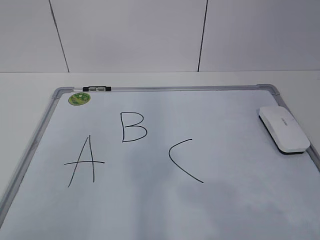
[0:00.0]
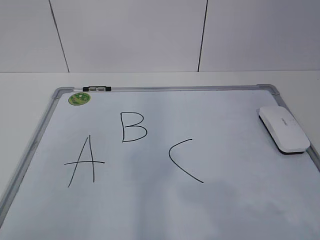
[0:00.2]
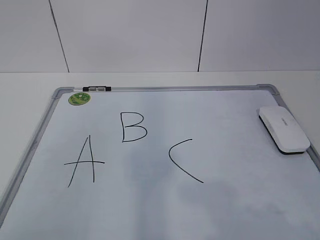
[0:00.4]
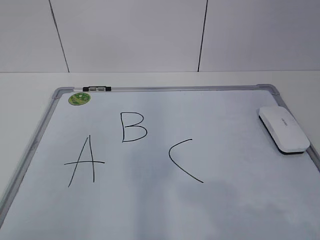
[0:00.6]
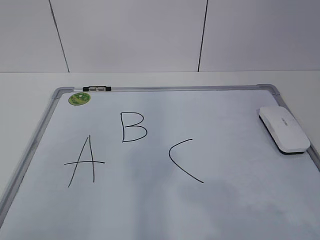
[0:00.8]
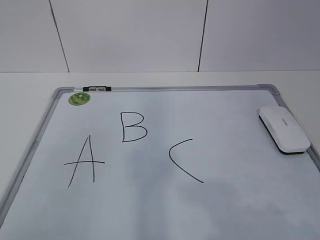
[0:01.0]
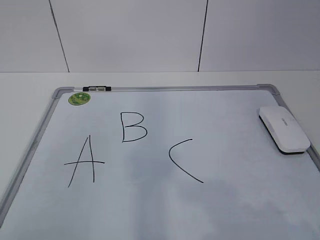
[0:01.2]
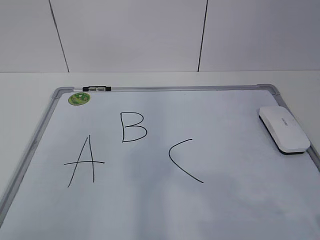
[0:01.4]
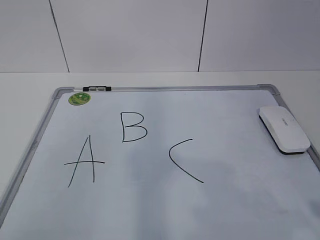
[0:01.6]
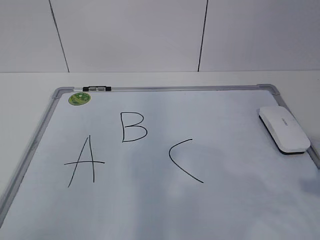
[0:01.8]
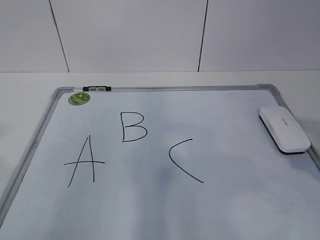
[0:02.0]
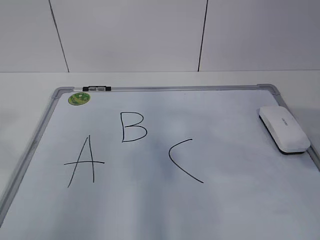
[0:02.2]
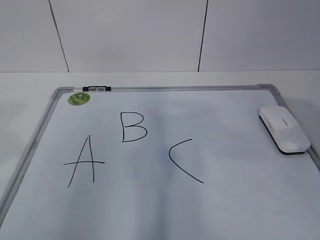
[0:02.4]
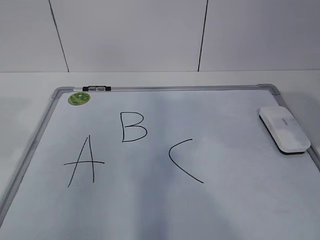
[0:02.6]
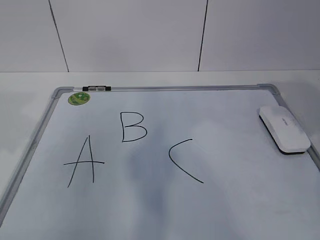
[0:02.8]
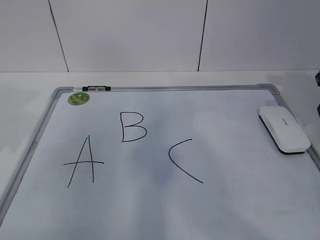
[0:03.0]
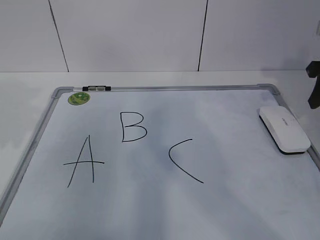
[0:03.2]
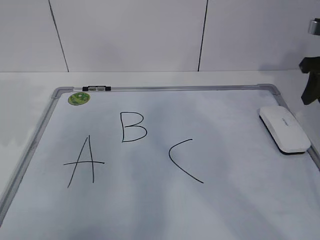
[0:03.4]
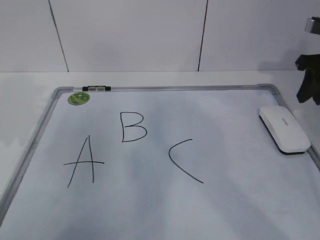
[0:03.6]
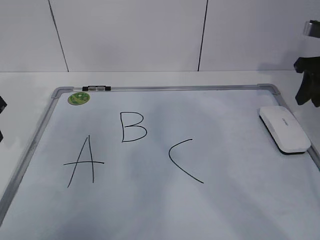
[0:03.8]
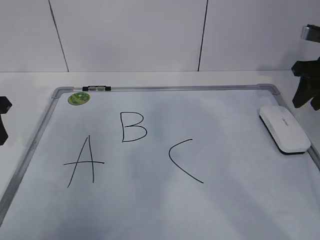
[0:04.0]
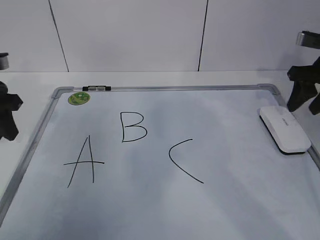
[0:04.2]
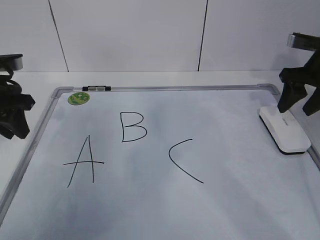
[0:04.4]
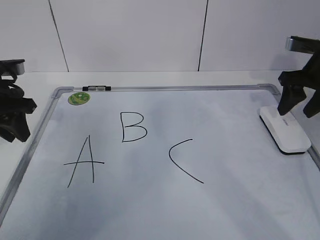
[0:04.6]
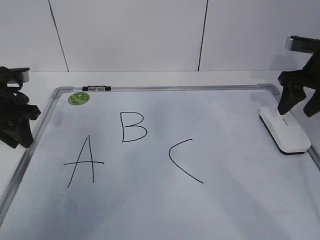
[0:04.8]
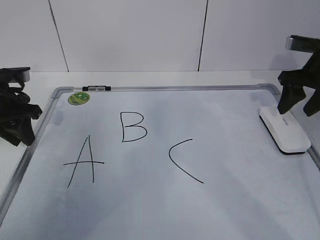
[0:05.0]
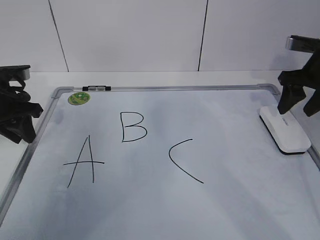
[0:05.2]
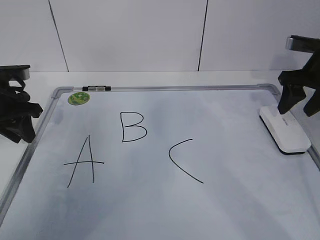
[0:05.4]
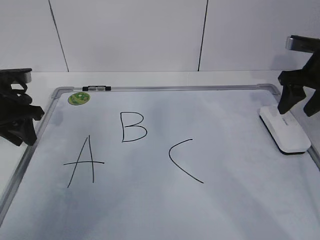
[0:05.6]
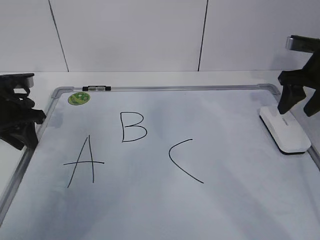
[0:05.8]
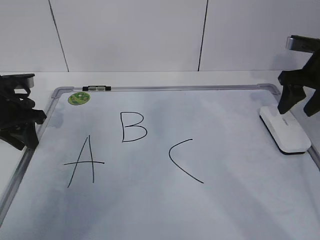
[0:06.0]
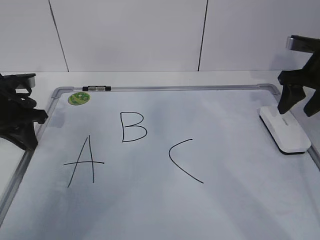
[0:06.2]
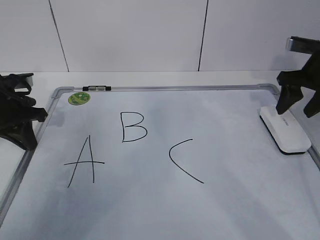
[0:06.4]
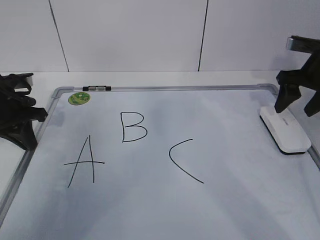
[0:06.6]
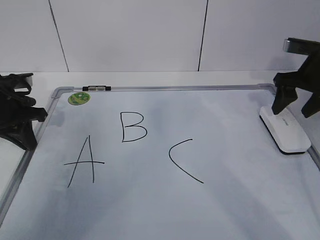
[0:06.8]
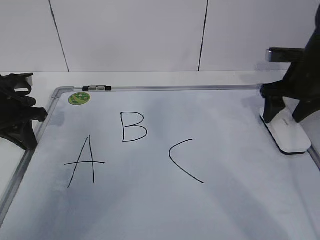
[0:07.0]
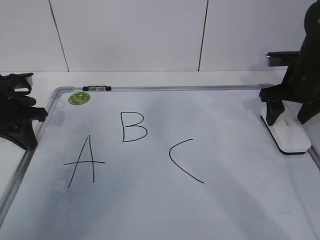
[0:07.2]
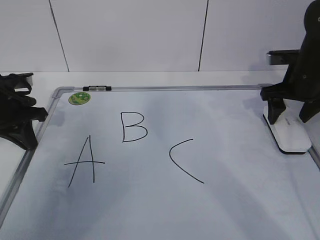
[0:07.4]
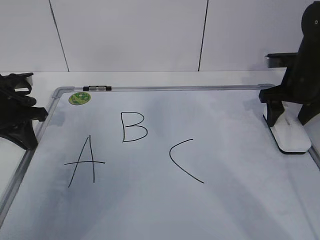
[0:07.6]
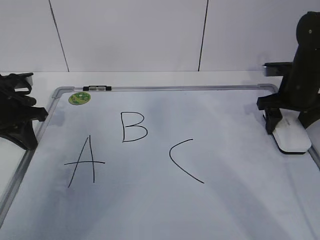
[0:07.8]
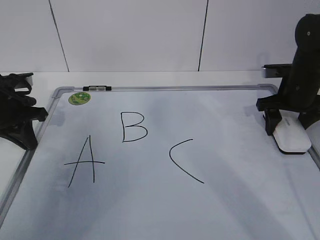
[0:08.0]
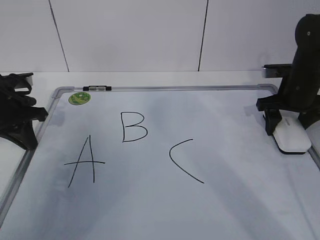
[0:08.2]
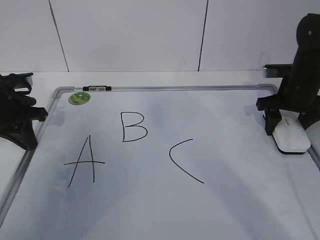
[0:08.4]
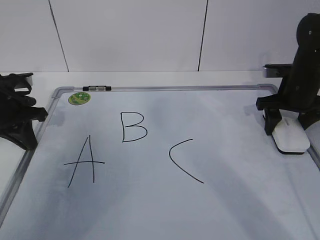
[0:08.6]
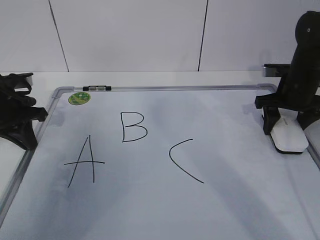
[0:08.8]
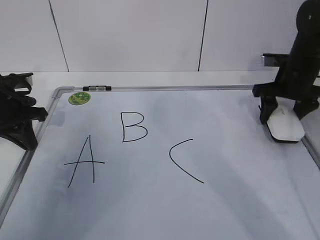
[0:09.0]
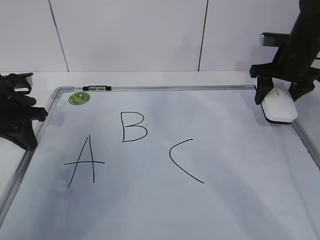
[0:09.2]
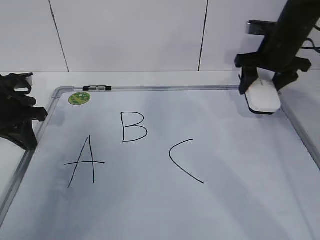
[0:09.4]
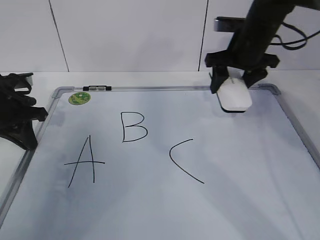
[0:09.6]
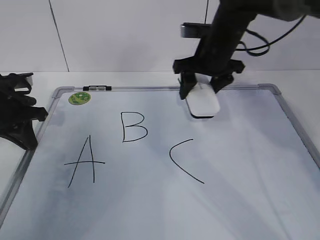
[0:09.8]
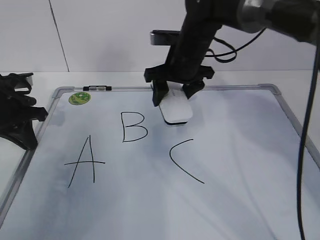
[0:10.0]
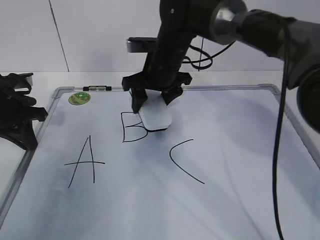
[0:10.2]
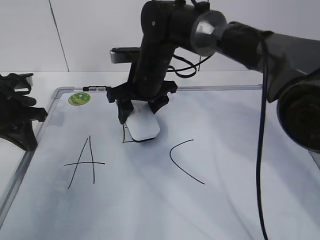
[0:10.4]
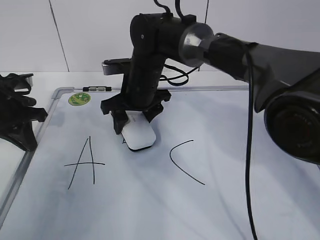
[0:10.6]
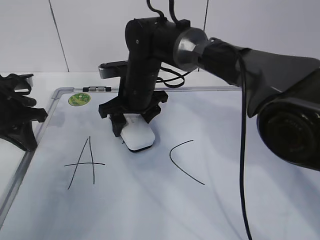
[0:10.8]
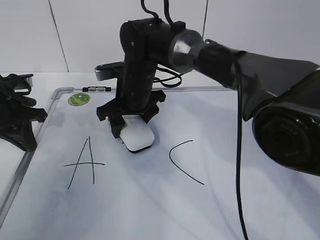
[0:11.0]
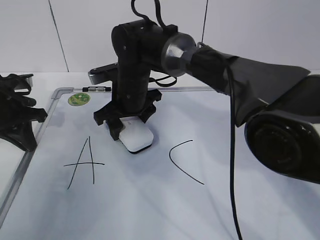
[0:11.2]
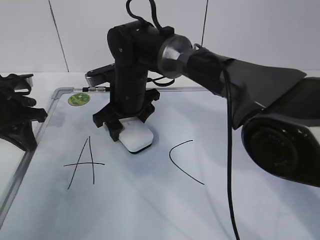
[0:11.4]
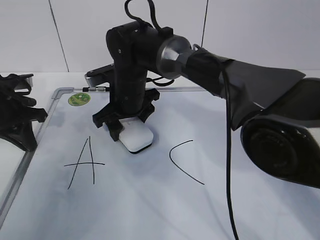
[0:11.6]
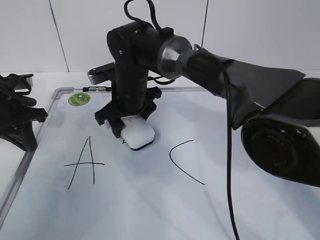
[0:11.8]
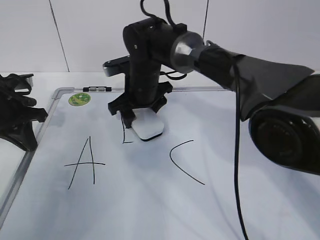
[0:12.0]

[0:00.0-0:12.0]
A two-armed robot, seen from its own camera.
Task of the whole recording: pick up the eraser on the blackboard and erase the letter "B".
Step, 0:00.0 to 0:05.0: Hold the drawing board steady with your left hand.
Step, 0:05.4 to 0:06.8: Grab the eraser with your right hand.
Step, 0:07.0 to 0:11.4: Put down the eraser with your right hand.
0:01.6 to 0:03.0: The grippers both shift forward by approximately 25 cm.
0:03.0 to 0:04.4: The right gripper is displaced forward by about 10 cm, and opens up. Meanwhile the left gripper travels forward and downward by about 15 cm.
0:04.4 to 0:06.0: The left gripper is displaced downward by about 5 cm.
0:06.0 to 0:07.6: The left gripper closes.
0:07.6 to 0:09.0: The grippers make only small movements.
0:09.0 to 0:10.4: The right gripper travels to the left by some 30 cm.

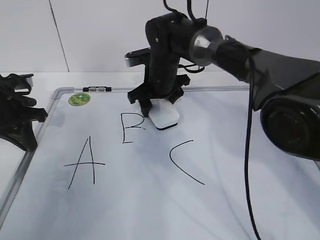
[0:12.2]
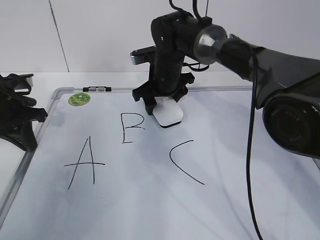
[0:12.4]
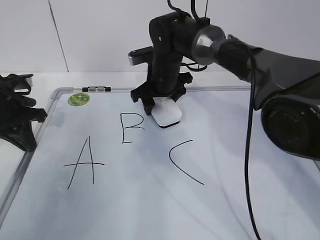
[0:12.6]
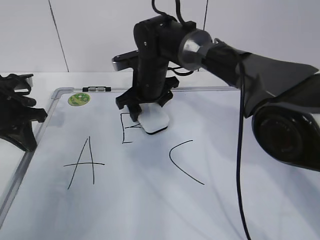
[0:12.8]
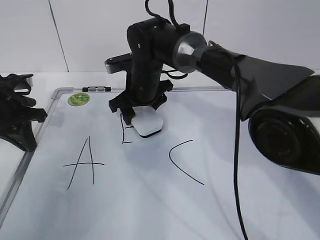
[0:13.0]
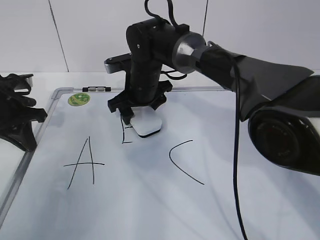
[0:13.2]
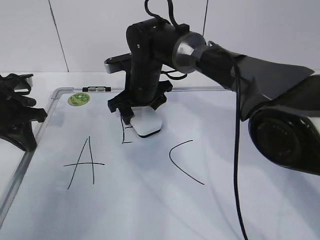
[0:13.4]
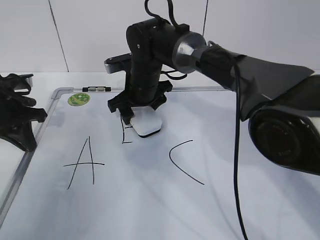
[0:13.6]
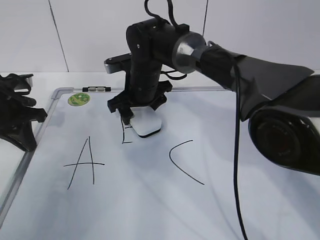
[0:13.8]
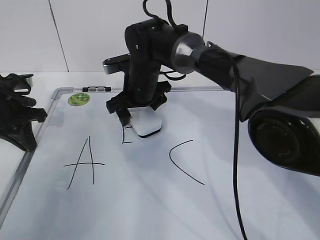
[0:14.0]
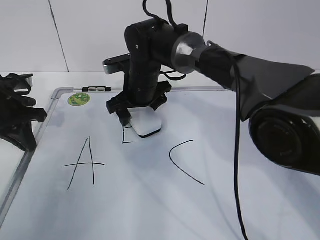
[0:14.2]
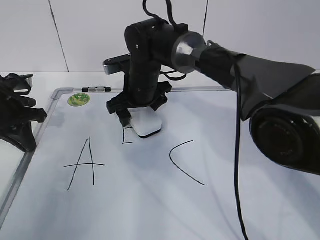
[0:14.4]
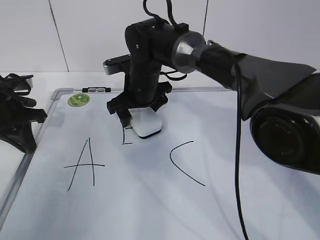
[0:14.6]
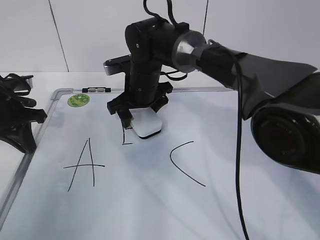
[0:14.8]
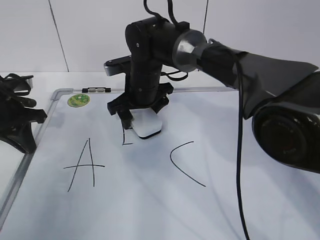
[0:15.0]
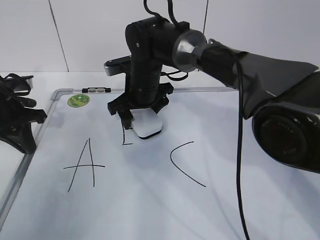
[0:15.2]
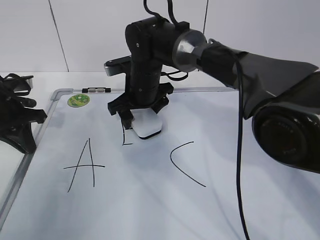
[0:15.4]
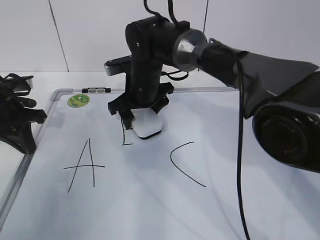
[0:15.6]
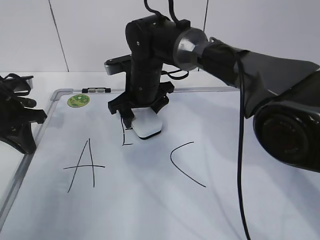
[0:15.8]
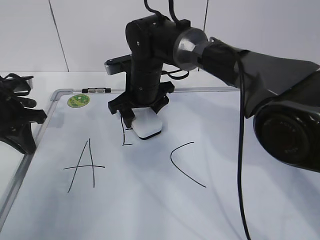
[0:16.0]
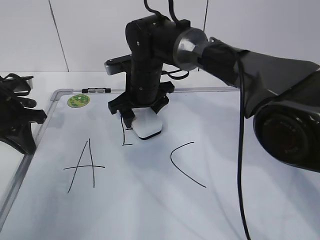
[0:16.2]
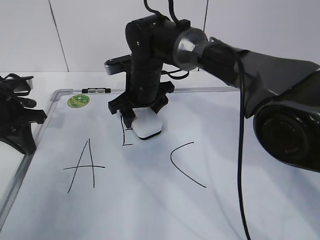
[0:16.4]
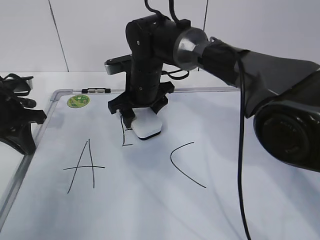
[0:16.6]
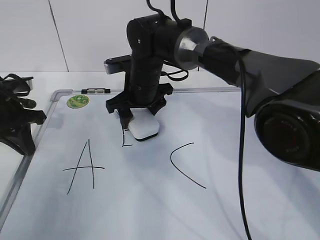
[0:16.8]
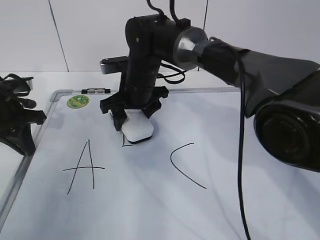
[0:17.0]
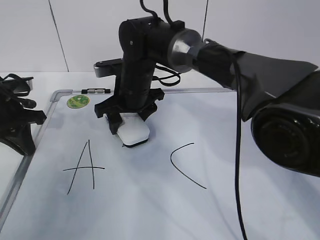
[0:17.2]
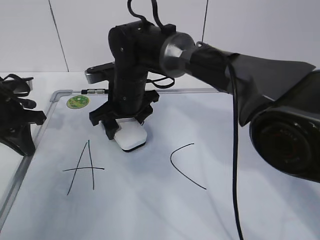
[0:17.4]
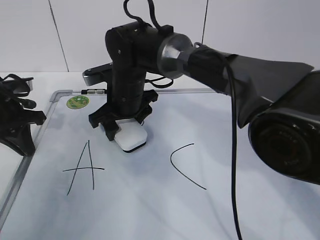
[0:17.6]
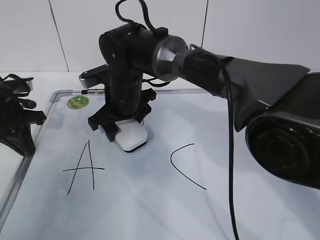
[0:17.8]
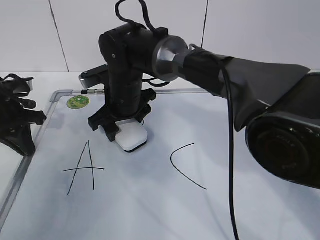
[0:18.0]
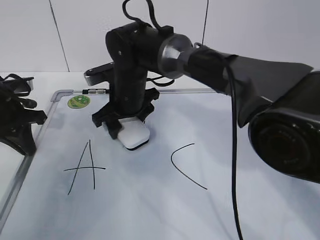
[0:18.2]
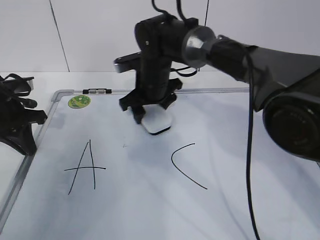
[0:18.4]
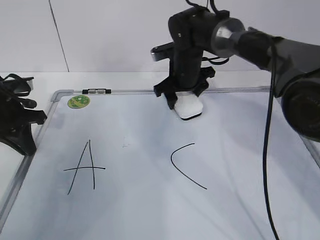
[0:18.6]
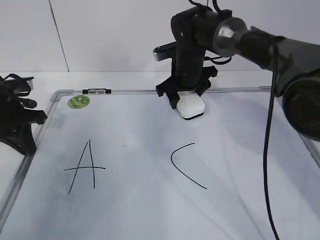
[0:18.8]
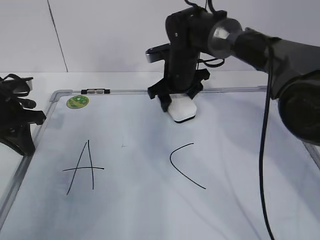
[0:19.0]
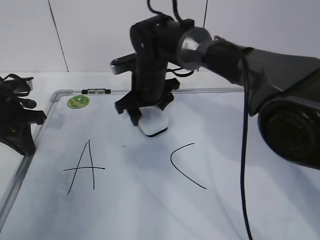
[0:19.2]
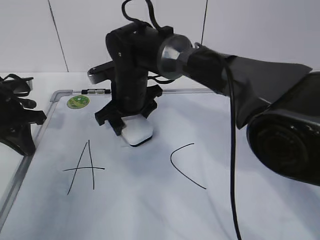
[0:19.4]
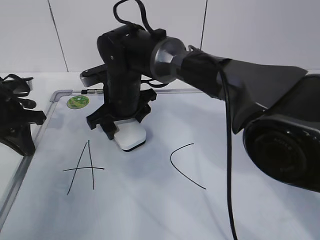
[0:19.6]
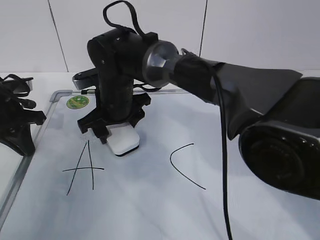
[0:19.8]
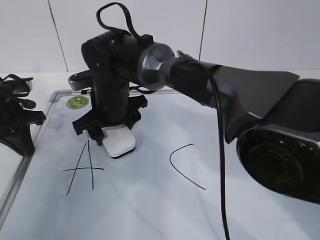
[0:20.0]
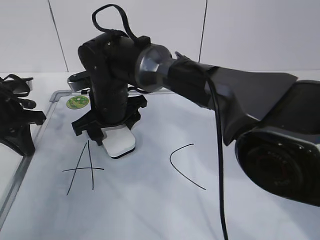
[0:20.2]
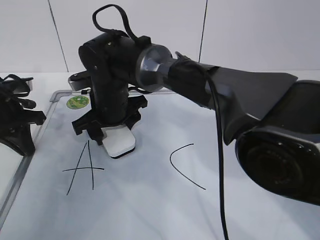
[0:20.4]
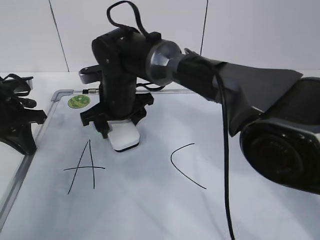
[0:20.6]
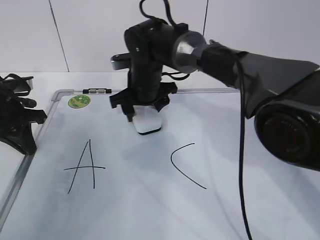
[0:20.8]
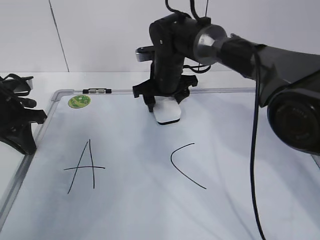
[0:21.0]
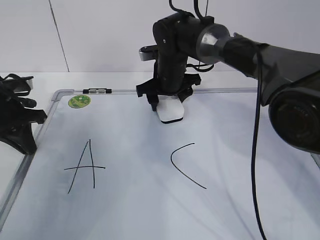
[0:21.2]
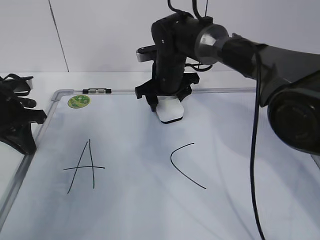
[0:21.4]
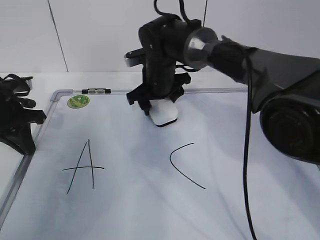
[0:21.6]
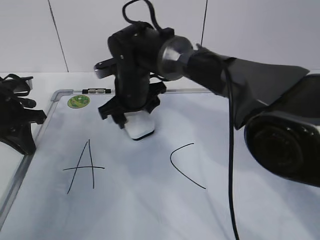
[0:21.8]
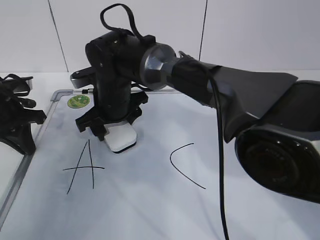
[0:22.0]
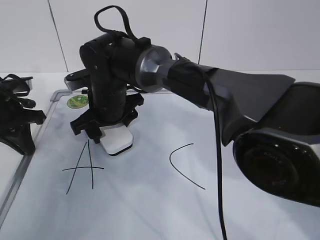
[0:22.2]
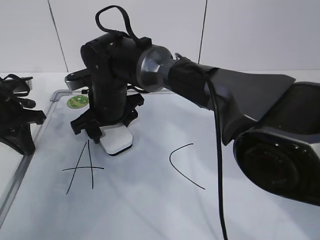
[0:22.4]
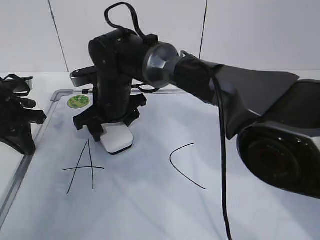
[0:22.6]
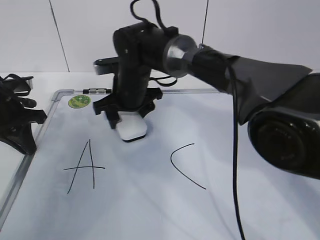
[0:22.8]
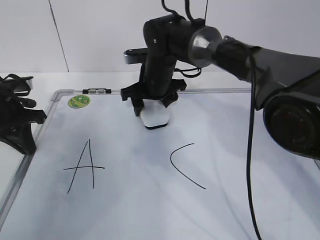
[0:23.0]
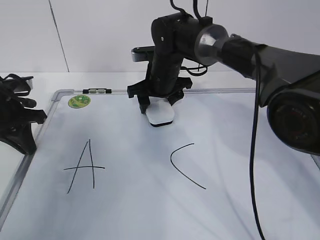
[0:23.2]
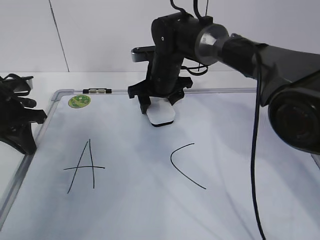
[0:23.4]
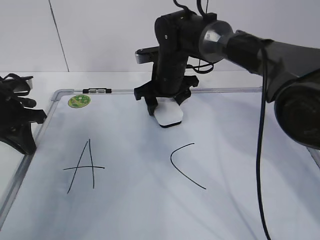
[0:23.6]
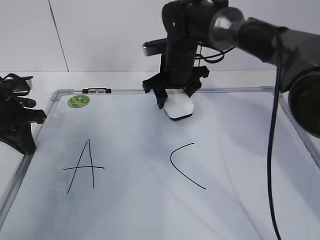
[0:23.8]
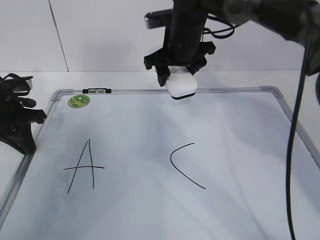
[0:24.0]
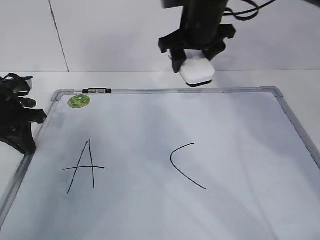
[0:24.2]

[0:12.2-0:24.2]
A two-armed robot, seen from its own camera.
Task of the whole recording: pick up the eraser on the blackboard and erase the letter "B".
Step, 0:12.2 to 0:13.2: Grab the eraser with your right hand.
Step, 0:13.4 to 0:19.4: Erase the letter B with your right hand.
Step, 0:19.6 to 0:22.8: Put down the eraser with your right hand.
0:12.2 to 0:13.8: The grippers stay close to where they were, moving slightly.
0:13.8 to 0:15.2: Neither gripper changes place.
0:15.2 to 0:16.6: The two grippers keep their place.
0:16.6 to 0:18.2: The grippers stay close to where they were, moving slightly.
0:18.2 to 0:19.8: The right gripper goes to the right and returns, about 10 cm each way.
0:19.8 to 0:21.2: The right gripper travels to the right and forward by about 15 cm.
0:21.2 to 0:22.6: The right gripper goes about 15 cm to the left and backward.
0:22.6 to 0:24.2: The right gripper goes about 20 cm to the right and upward.
